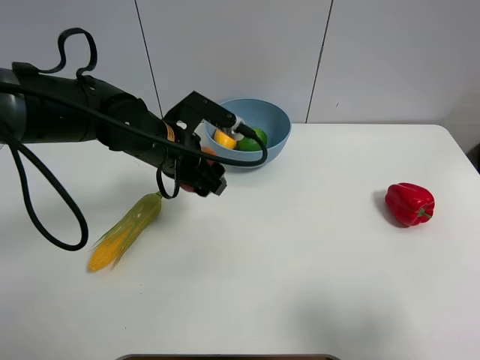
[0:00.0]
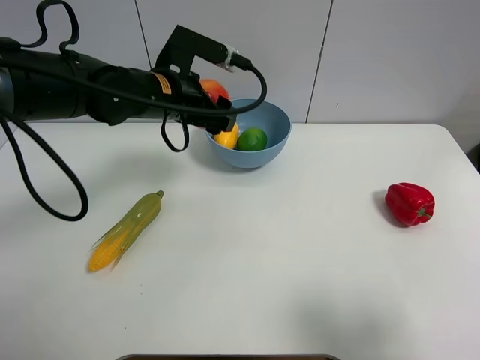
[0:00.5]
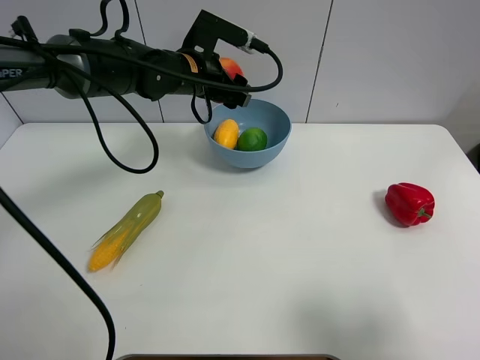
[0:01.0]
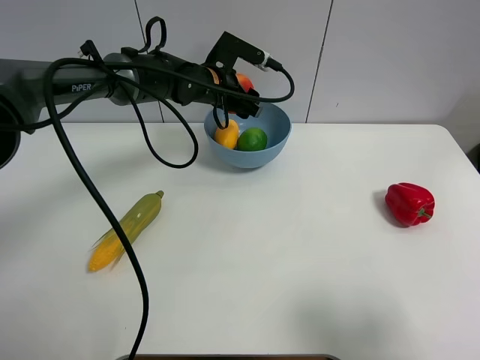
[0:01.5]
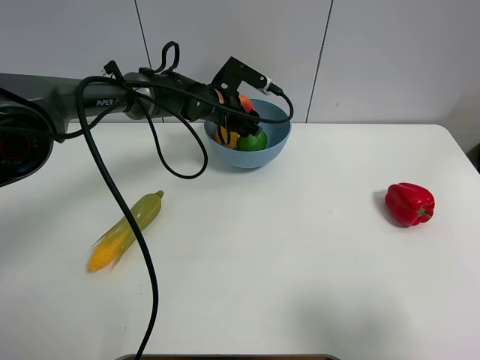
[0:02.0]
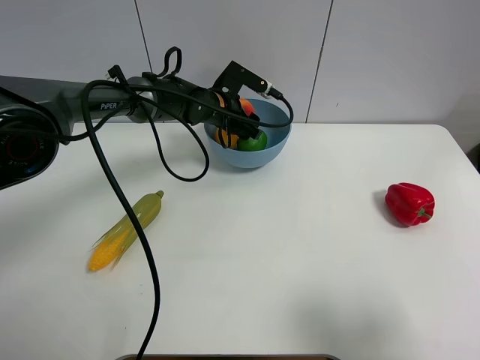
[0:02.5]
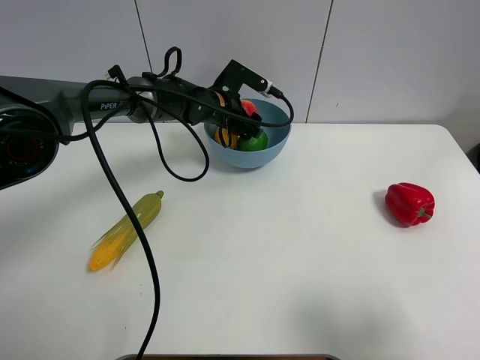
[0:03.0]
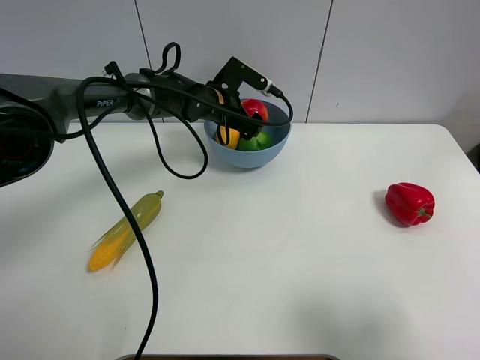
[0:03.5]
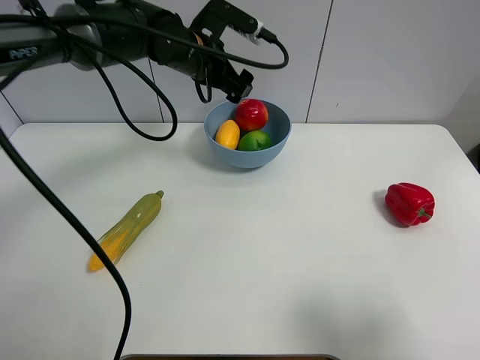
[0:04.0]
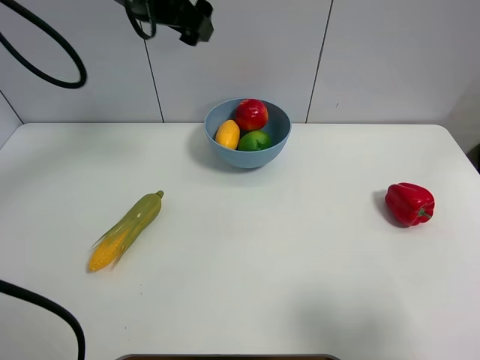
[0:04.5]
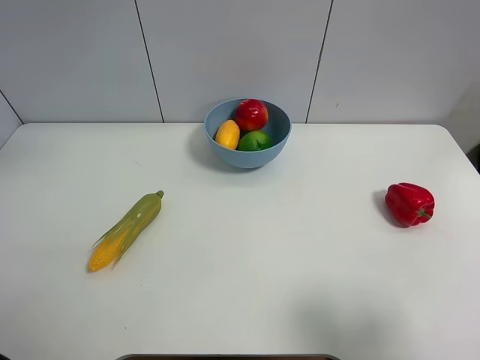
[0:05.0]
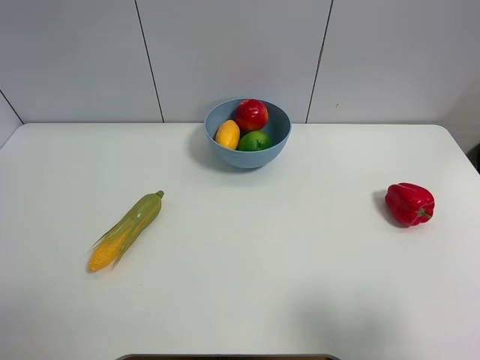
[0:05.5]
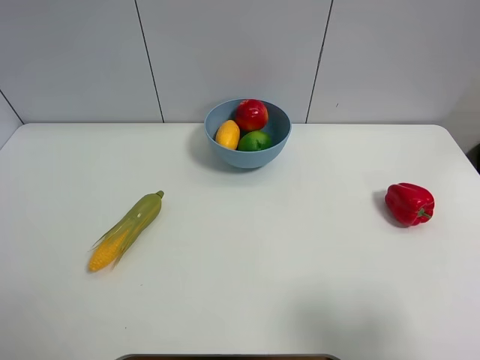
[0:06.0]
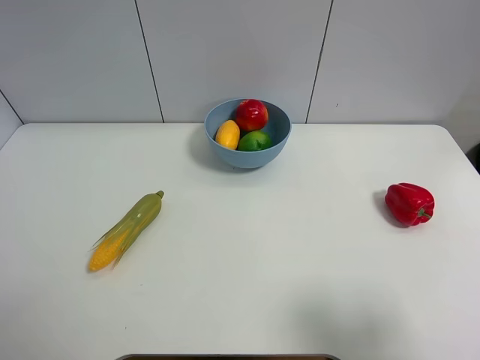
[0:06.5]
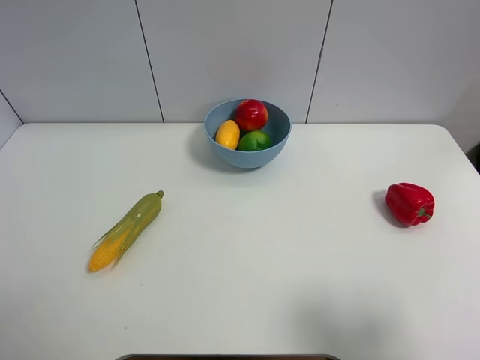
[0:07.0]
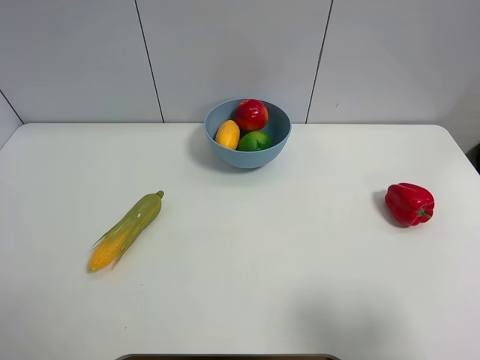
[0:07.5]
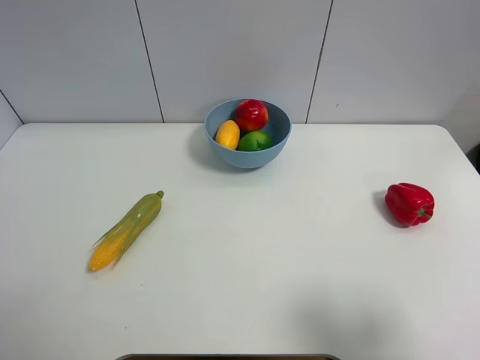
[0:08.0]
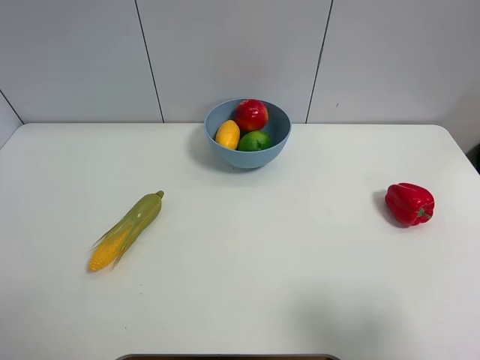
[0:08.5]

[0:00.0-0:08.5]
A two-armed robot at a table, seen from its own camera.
Task of the whole recording: Put the three fruits on the table into a bowl.
Step, 0:00.0 to 0:03.0: Place the pomegranate in the blue bowl with left gripper.
0:00.0 to 0:02.0: The left gripper shifts about 15 cm forward.
0:02.0 to 0:04.0: The left gripper shifts about 10 cm upward, and opens up.
0:04.0 to 0:06.5: The left gripper shifts about 50 cm backward and to the left.
